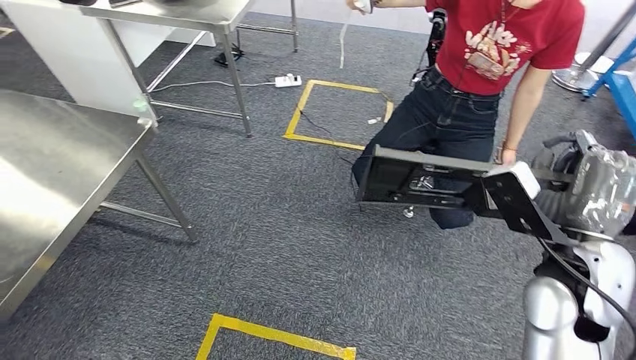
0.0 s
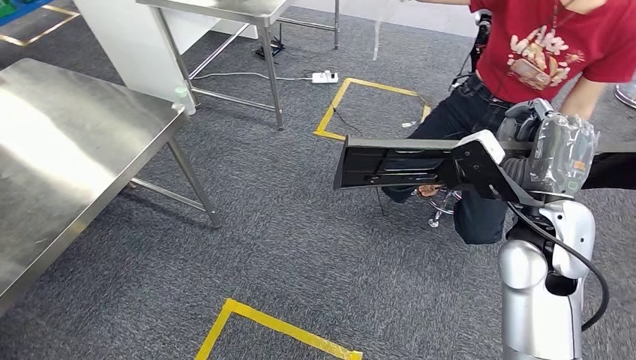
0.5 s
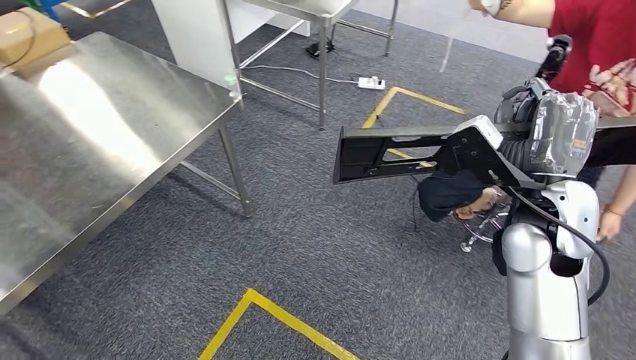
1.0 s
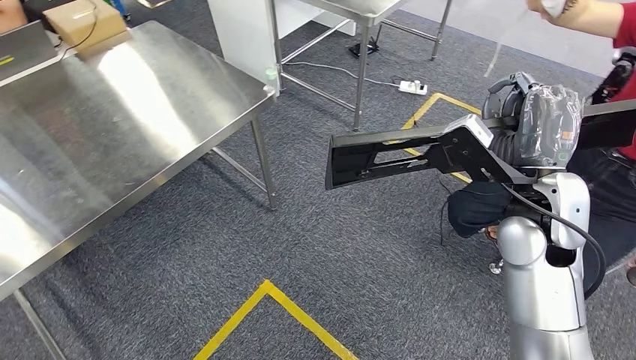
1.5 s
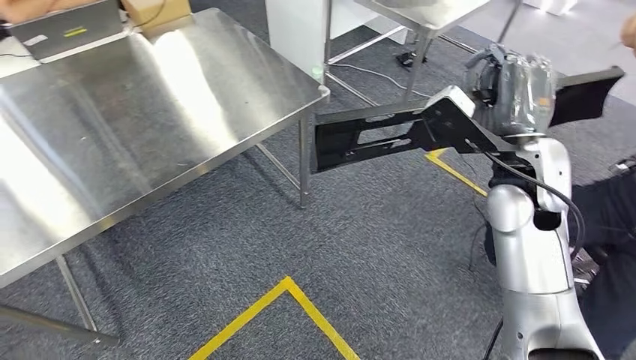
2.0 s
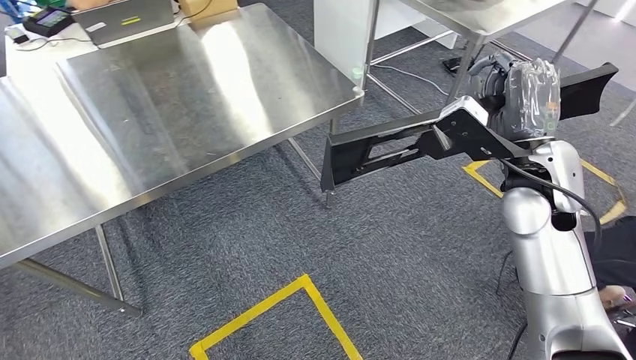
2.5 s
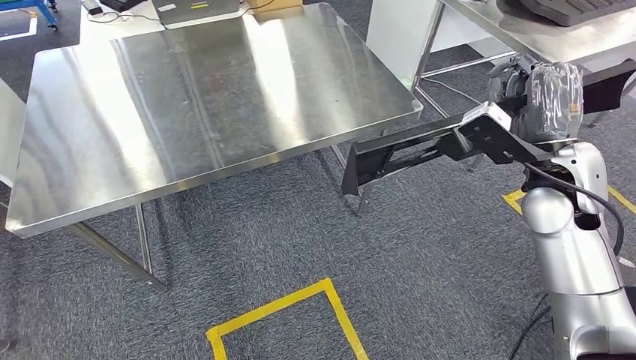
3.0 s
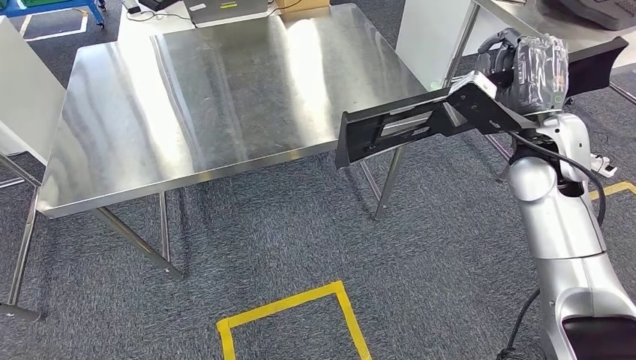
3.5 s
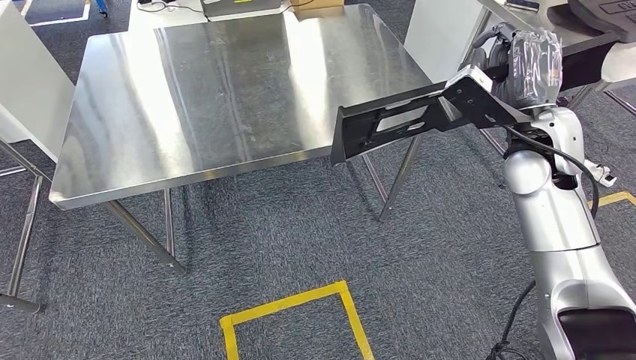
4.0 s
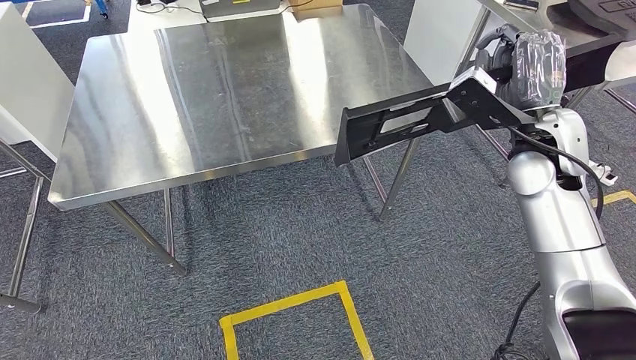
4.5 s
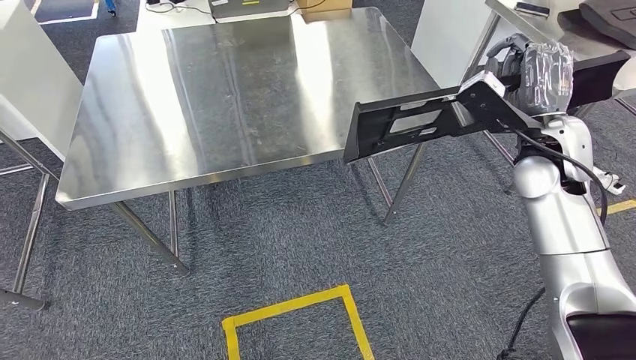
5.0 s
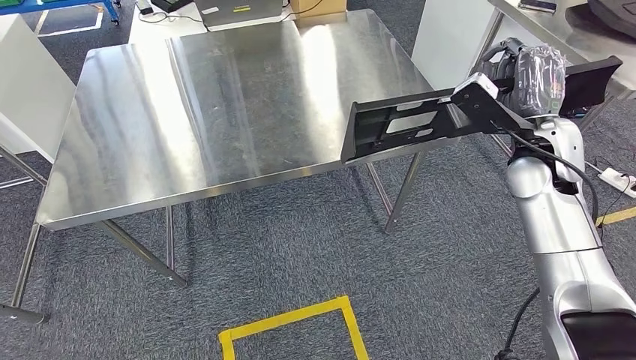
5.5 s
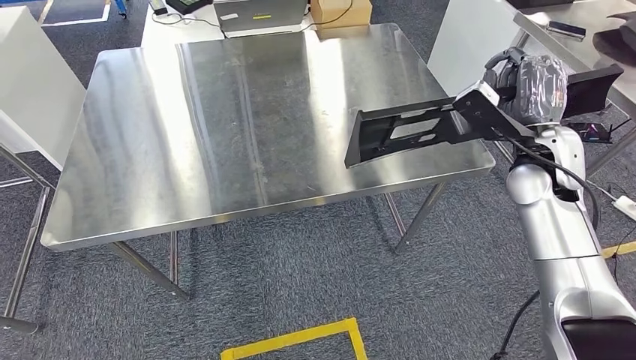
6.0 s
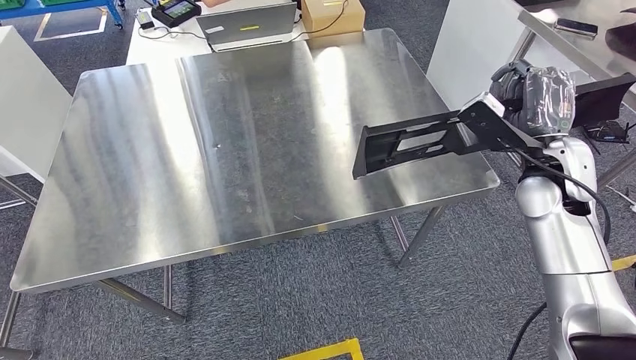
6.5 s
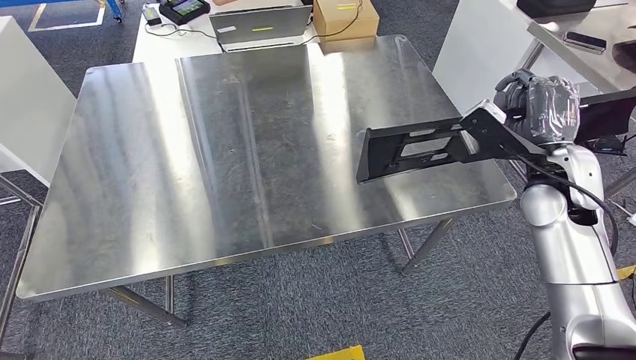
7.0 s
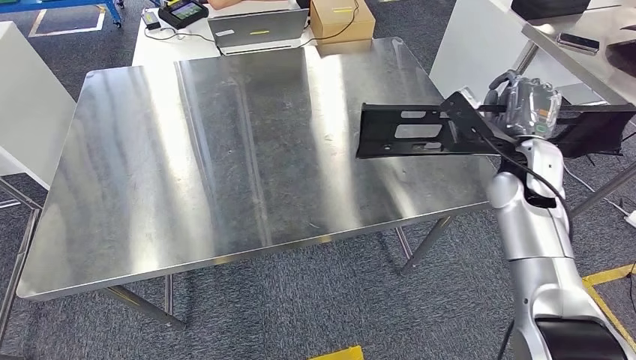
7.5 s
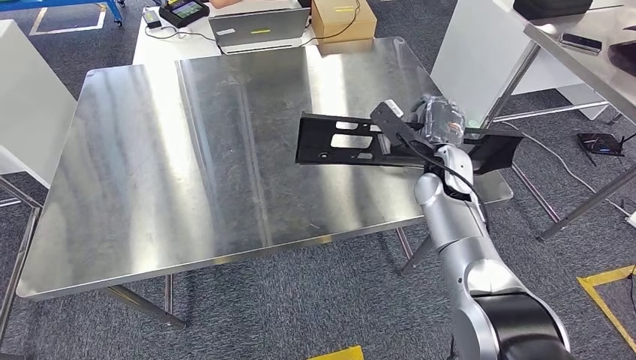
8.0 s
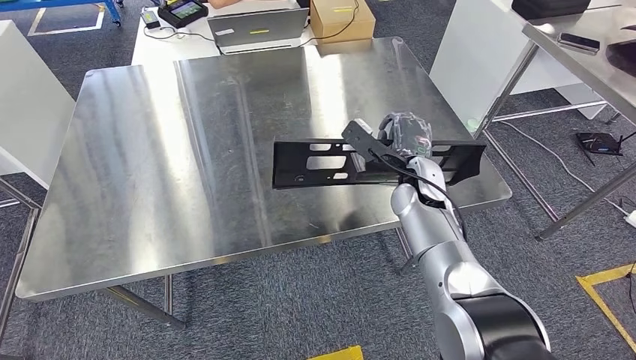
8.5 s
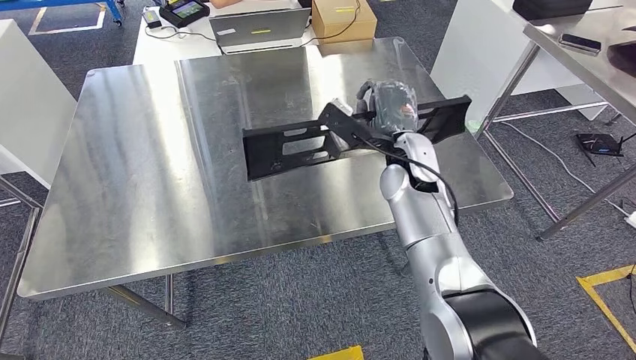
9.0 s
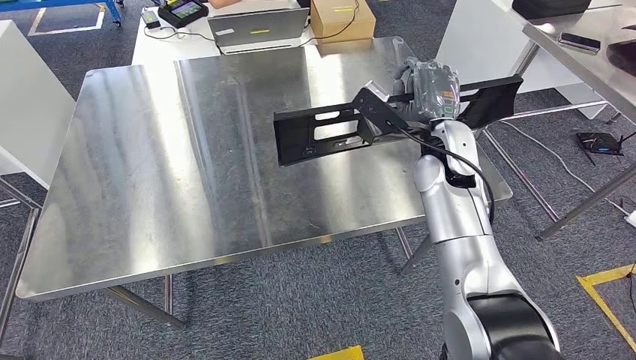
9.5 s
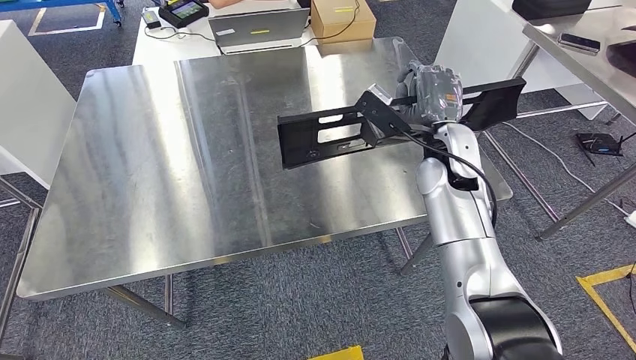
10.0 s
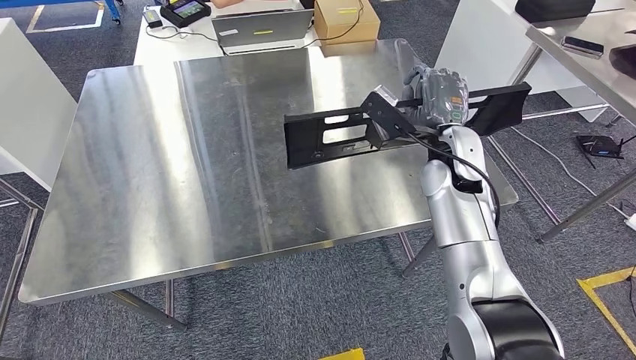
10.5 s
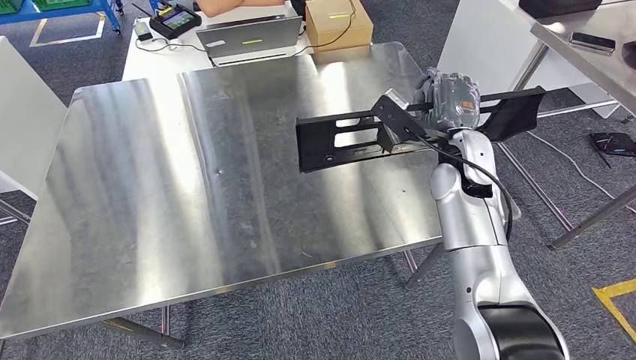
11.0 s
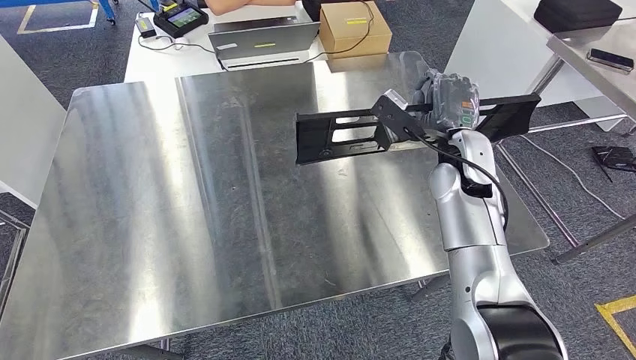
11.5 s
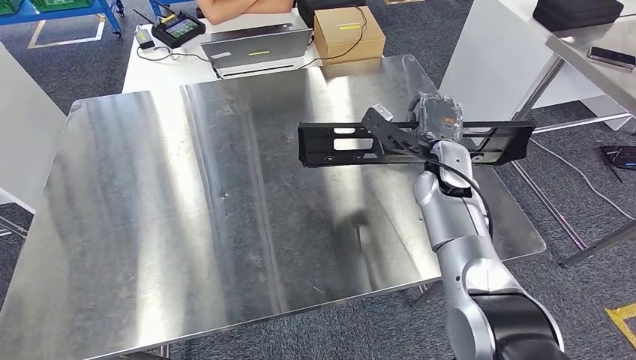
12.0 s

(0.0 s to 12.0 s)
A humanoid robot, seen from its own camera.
Step, 0.0 s - 5.0 s: Move the large material to the workbench.
8.0 s - 10.0 s: The right hand moves upward, roughly 5 cm.

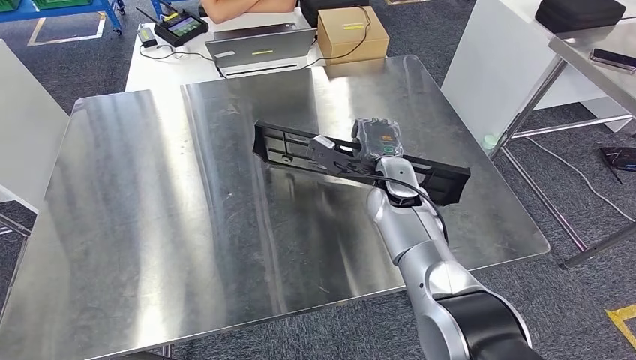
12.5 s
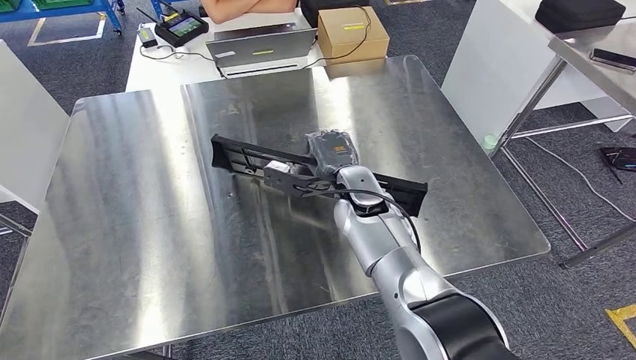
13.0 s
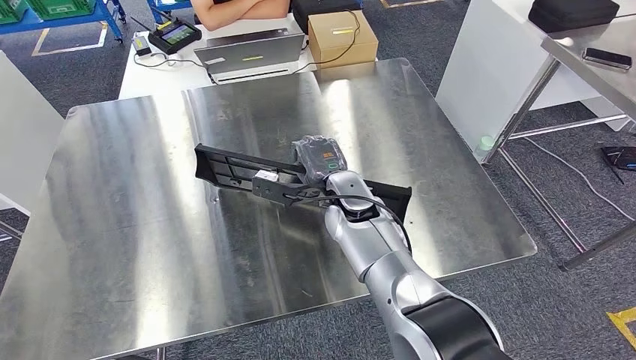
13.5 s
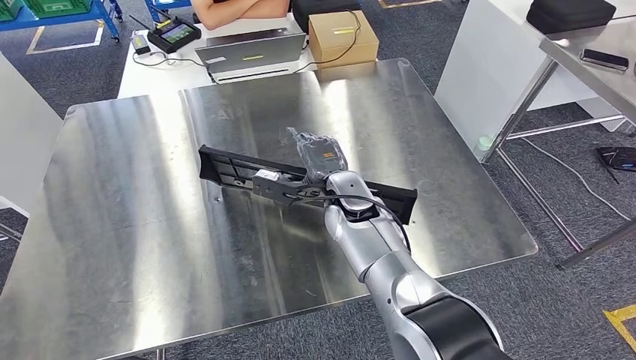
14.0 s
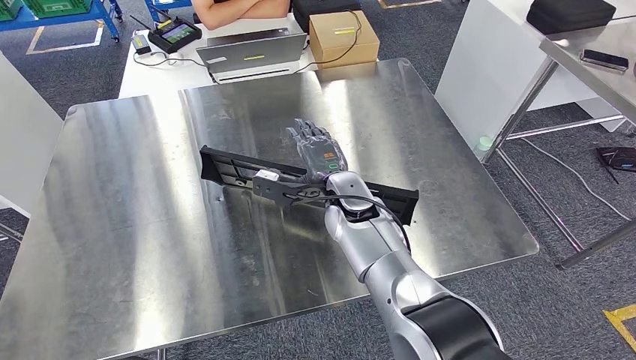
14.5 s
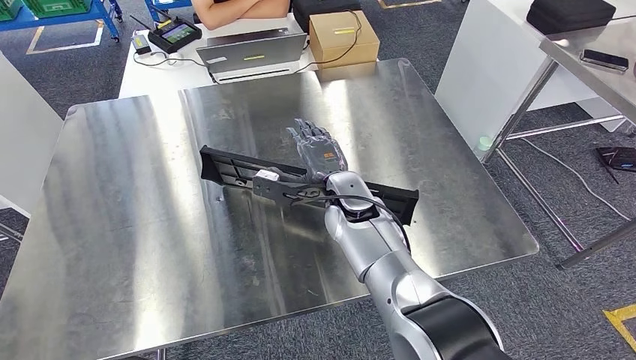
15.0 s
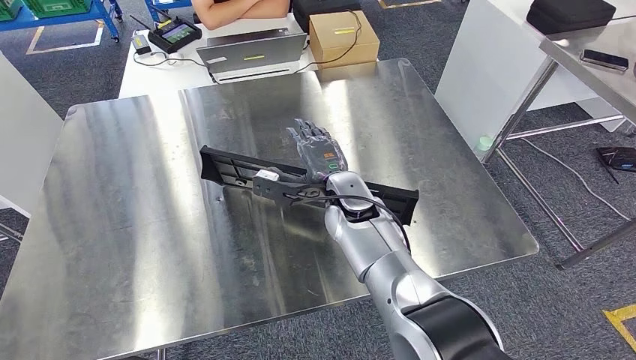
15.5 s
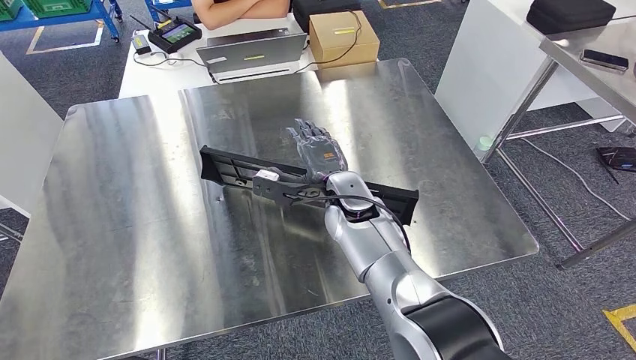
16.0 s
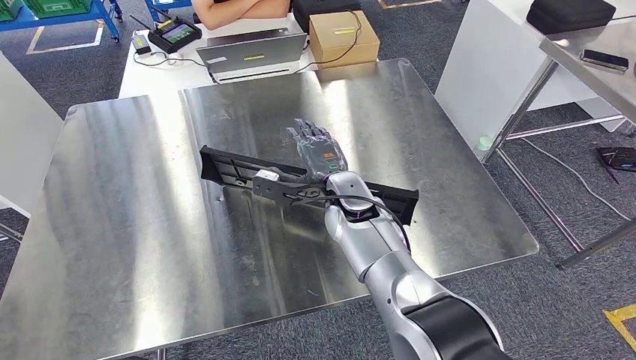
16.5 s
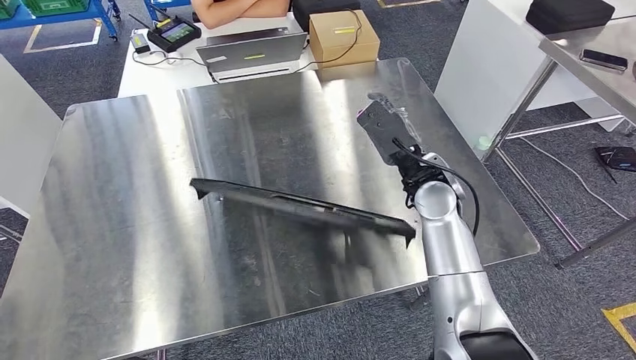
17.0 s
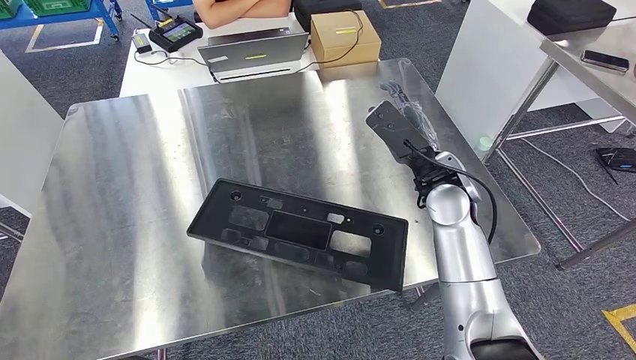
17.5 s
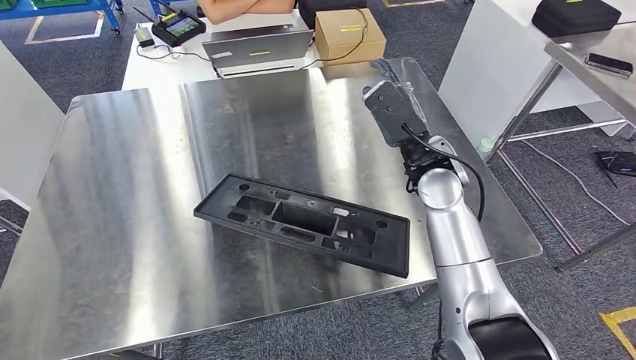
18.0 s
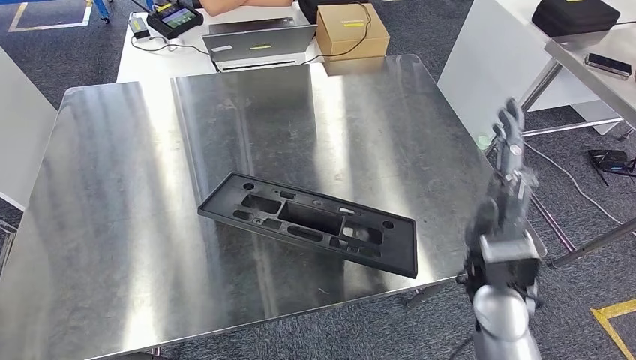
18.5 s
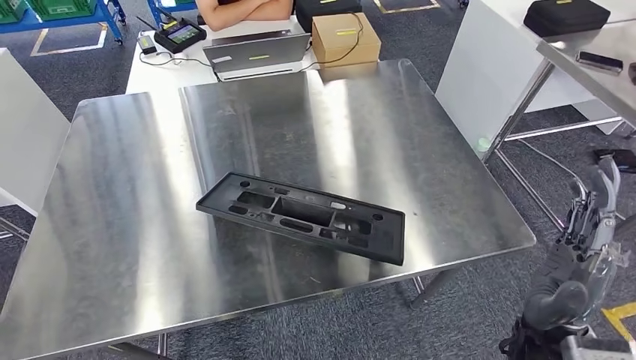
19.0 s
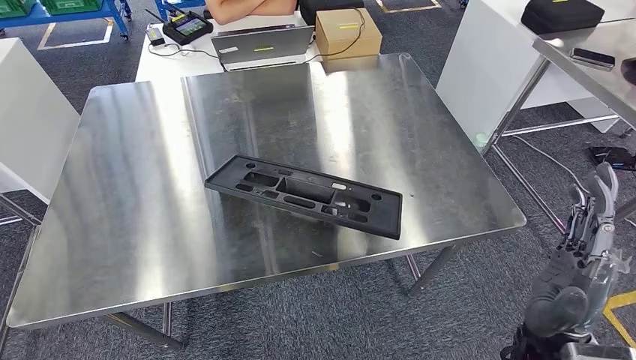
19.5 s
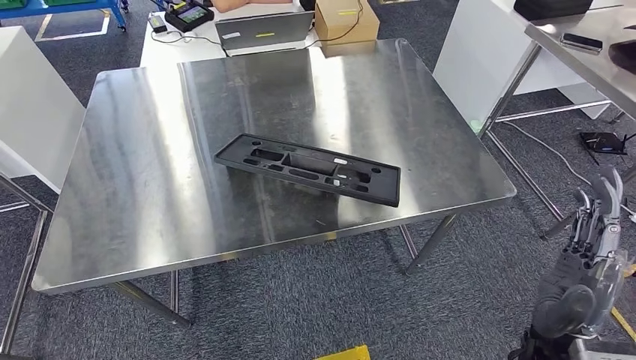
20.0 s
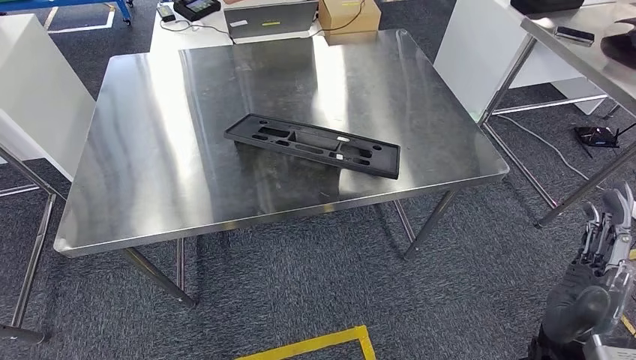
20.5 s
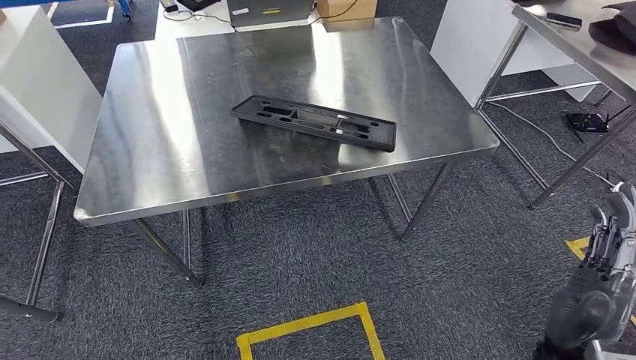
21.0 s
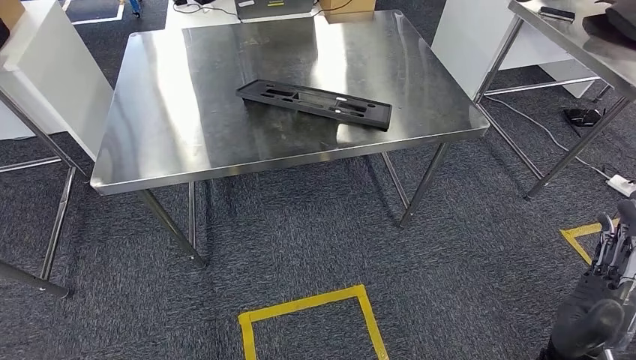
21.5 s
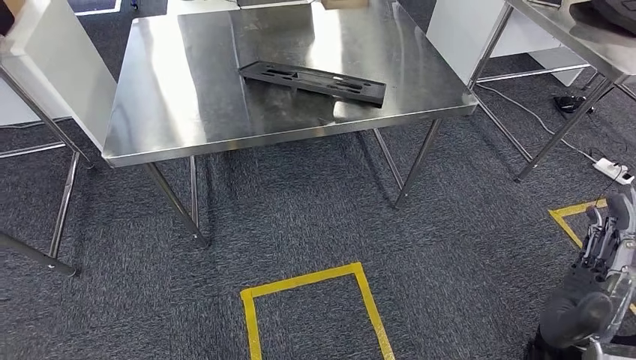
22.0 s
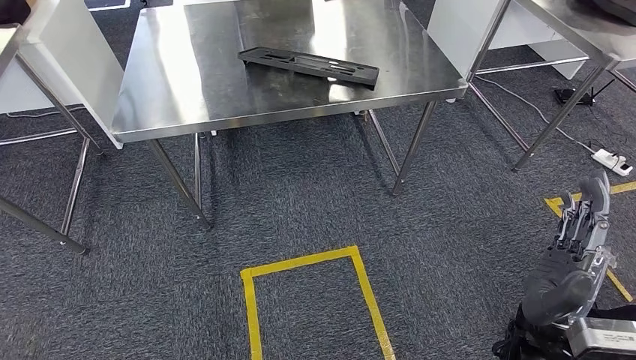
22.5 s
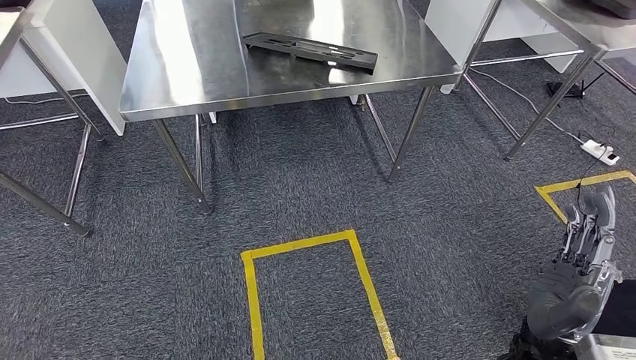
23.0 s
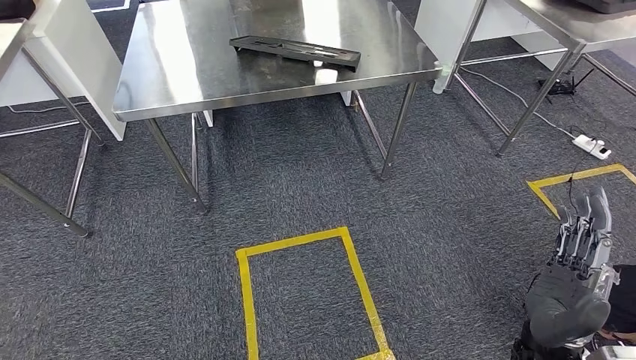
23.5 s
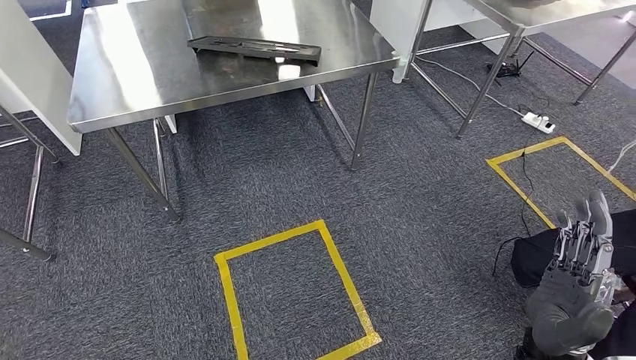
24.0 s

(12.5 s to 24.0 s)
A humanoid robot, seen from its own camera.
14.5 s - 16.5 s: Neither hand changes place.
